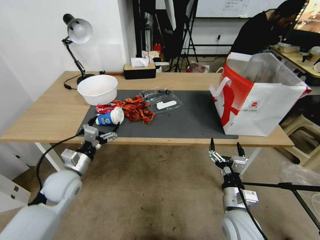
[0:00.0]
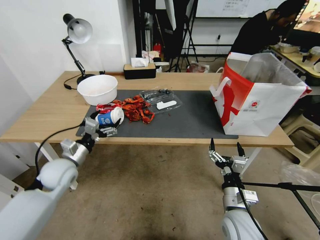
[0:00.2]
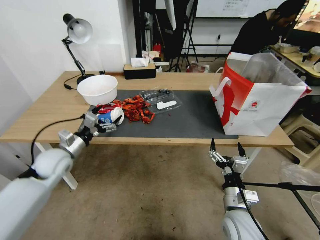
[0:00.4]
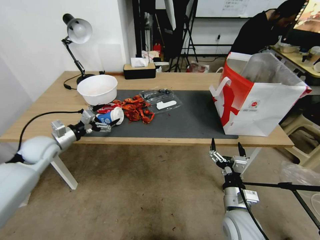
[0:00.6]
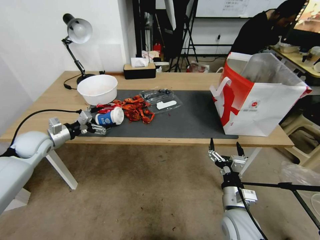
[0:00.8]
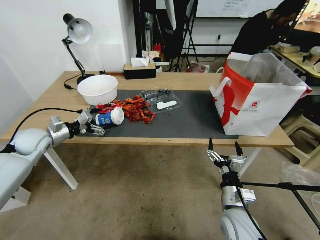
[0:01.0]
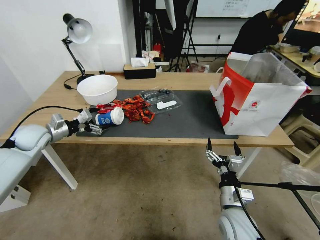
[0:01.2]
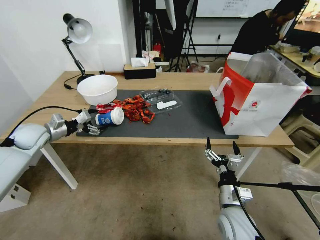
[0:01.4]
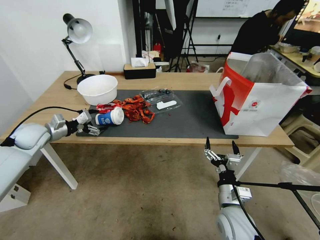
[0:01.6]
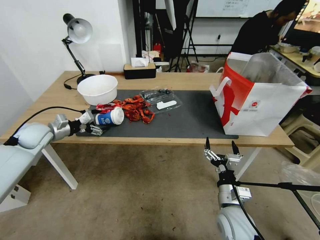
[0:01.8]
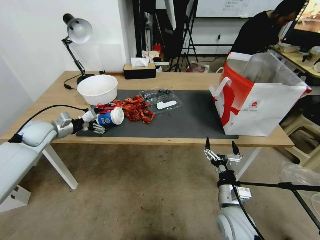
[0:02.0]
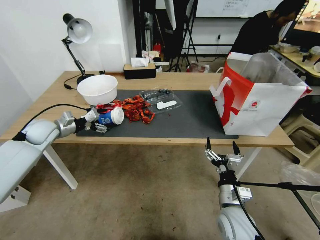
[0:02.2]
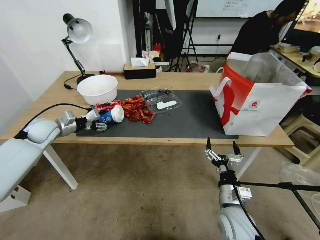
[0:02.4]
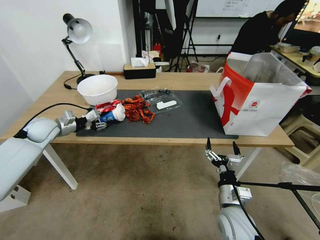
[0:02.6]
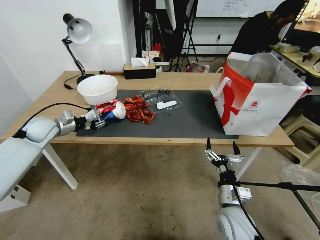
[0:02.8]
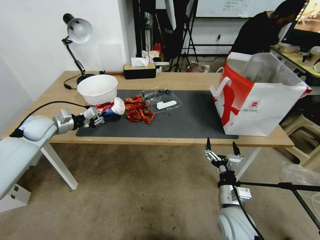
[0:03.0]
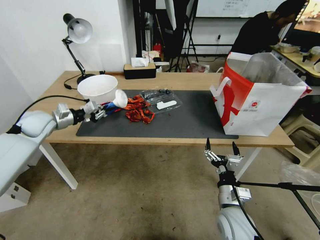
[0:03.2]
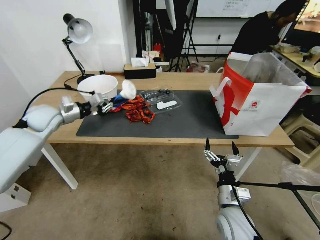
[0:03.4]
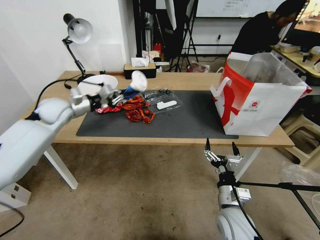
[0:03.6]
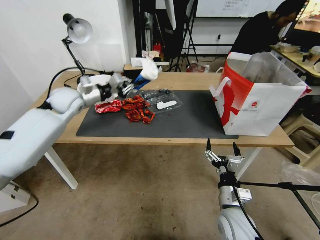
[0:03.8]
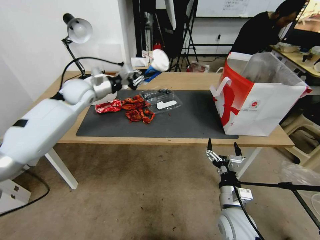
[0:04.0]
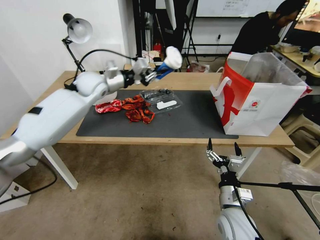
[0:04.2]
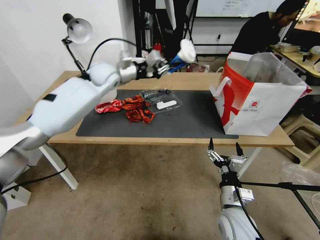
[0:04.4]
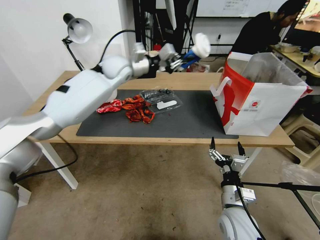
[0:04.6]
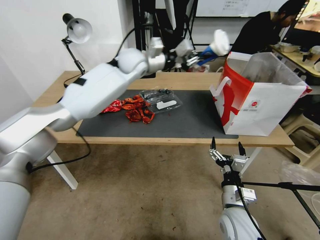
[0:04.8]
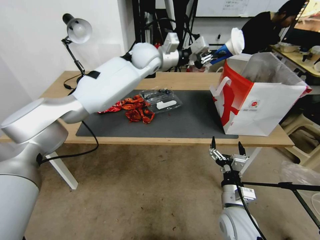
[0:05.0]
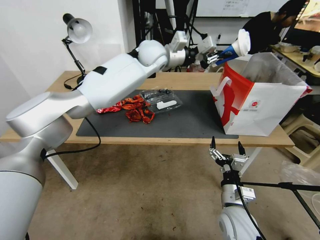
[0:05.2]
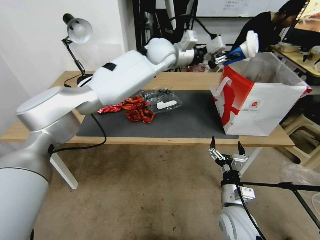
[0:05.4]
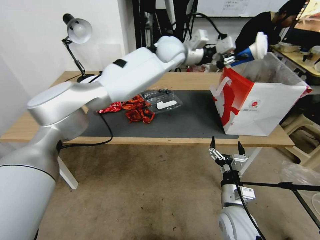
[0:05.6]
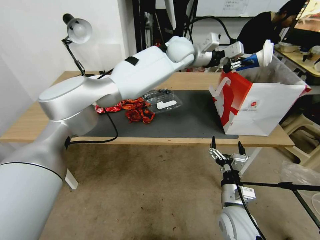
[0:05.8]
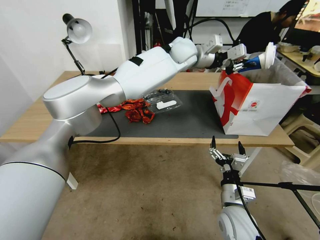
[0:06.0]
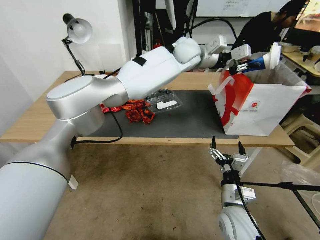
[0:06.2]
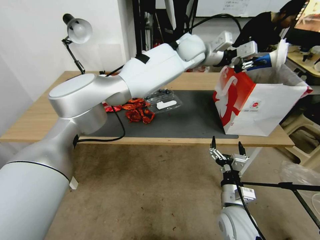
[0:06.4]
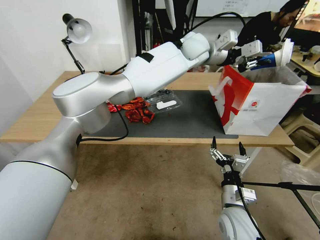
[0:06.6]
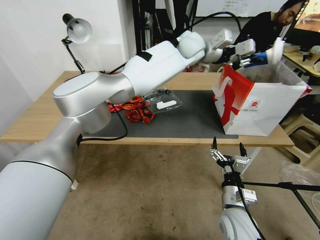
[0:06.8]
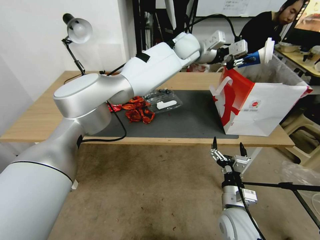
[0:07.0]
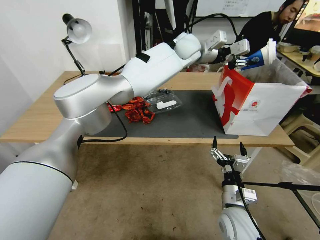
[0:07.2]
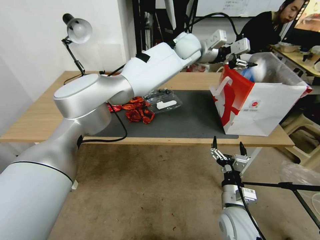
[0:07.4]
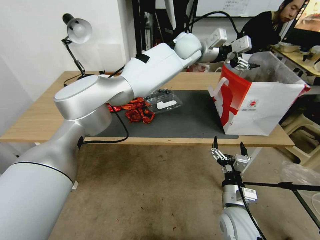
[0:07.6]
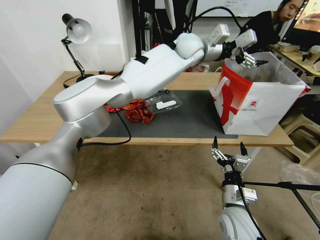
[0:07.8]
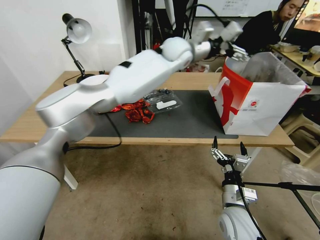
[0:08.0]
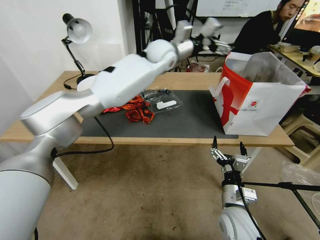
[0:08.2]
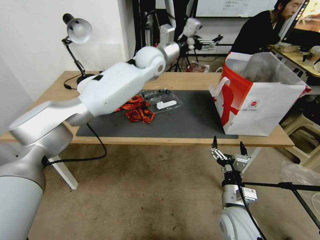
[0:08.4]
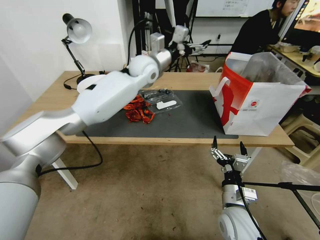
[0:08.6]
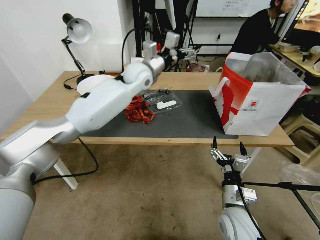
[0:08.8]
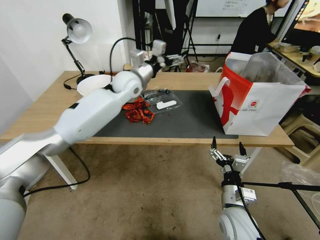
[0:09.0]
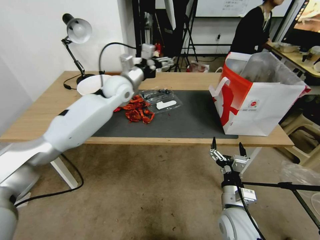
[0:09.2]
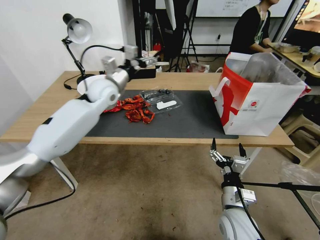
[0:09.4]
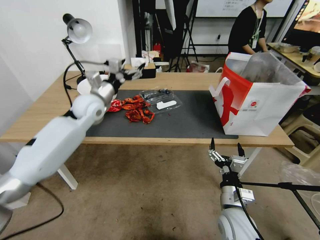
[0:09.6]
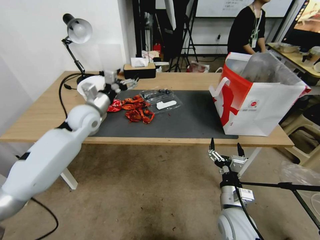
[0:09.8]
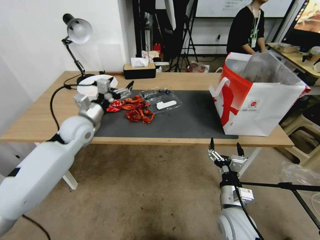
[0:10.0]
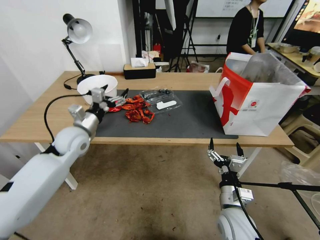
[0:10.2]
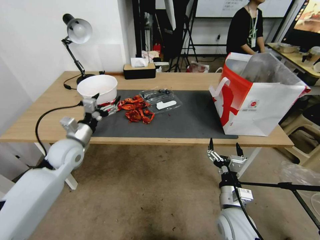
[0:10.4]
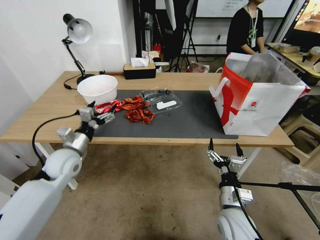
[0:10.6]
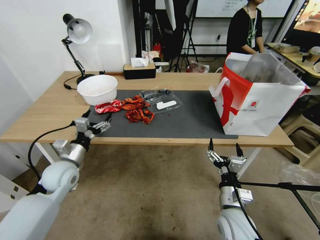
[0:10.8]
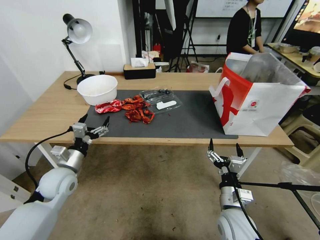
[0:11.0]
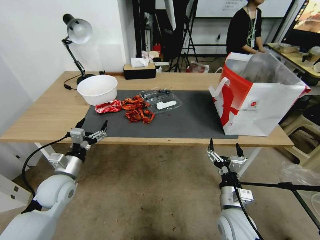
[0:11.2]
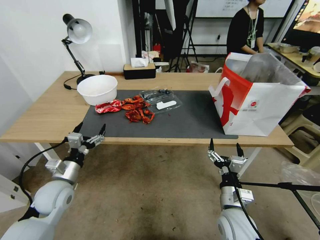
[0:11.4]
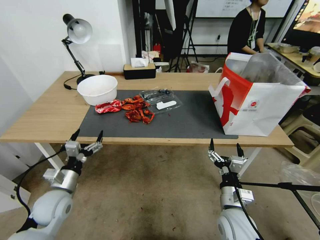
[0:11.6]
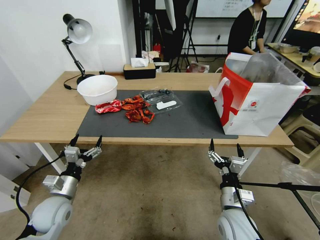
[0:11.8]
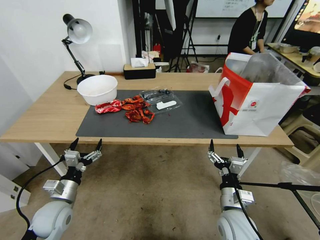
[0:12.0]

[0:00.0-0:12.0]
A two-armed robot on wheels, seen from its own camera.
0:00.0 to 0:01.6: The left gripper heads to the left, forward and upward, covering approximately 20 cm.
0:01.6 to 0:03.0: The left gripper closes.
0:03.0 to 0:04.4: The left gripper moves to the right, upward and forward, some 30 cm.
0:04.4 to 0:06.0: The left gripper heads to the right, covering some 25 cm.
0:06.0 to 0:07.6: The left gripper opens its fingers.
0:07.6 to 0:09.0: The left gripper moves to the left and downward, approximately 20 cm.
0:09.0 to 0:10.4: The left gripper travels to the left, backward and downward by roughly 30 cm.
0:10.4 to 0:12.0: The left gripper shifts roughly 20 cm backward and downward.

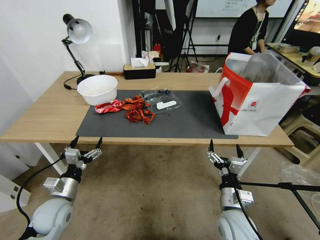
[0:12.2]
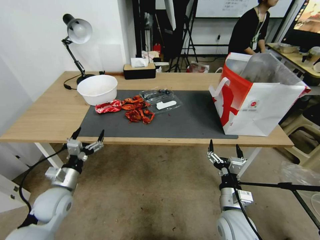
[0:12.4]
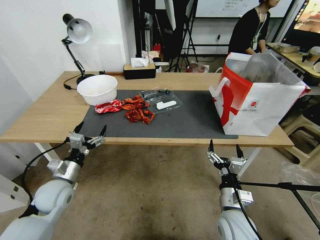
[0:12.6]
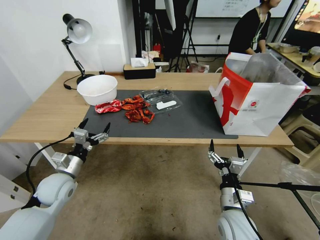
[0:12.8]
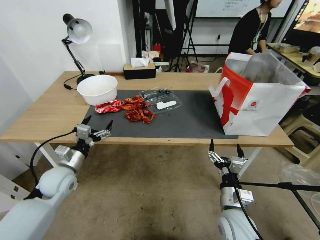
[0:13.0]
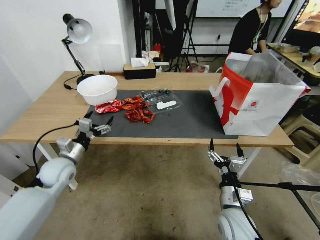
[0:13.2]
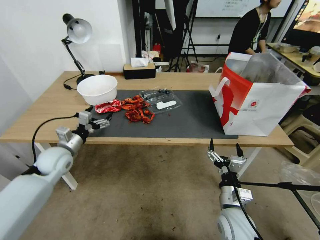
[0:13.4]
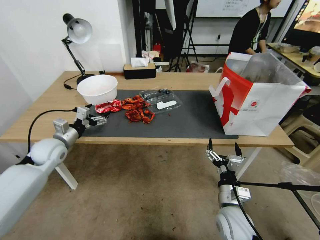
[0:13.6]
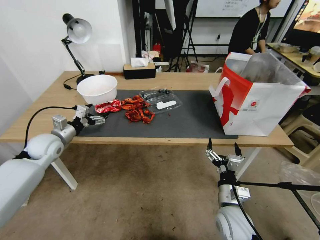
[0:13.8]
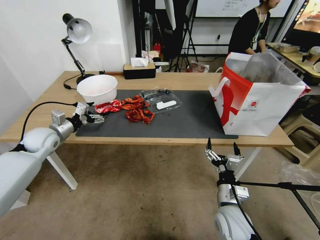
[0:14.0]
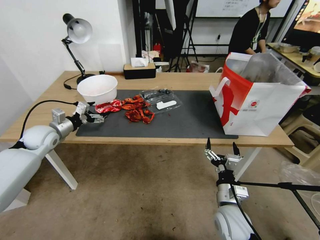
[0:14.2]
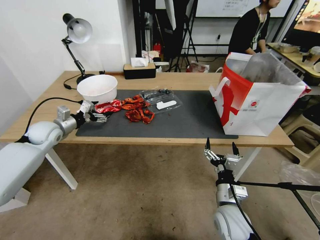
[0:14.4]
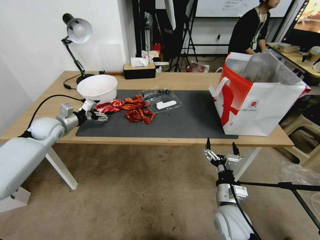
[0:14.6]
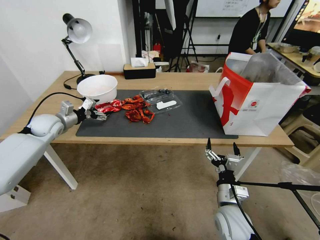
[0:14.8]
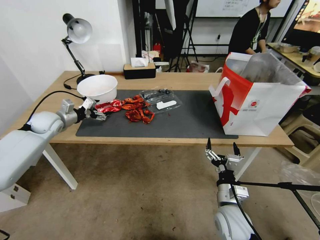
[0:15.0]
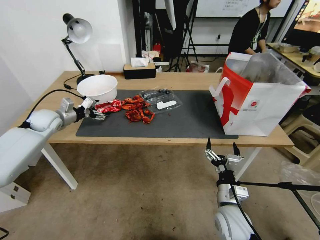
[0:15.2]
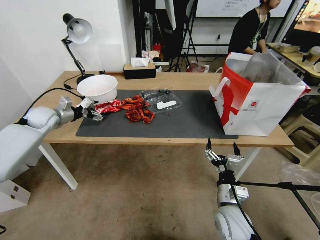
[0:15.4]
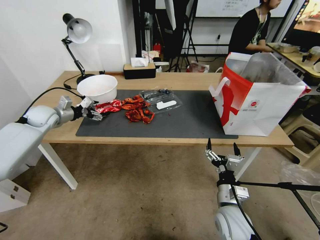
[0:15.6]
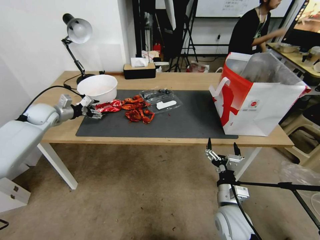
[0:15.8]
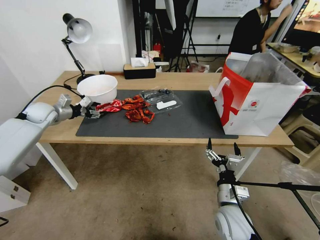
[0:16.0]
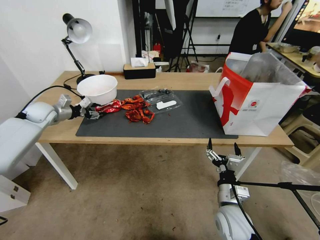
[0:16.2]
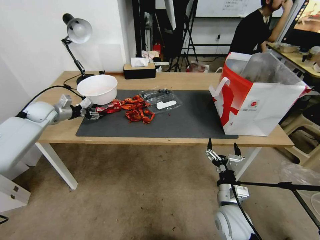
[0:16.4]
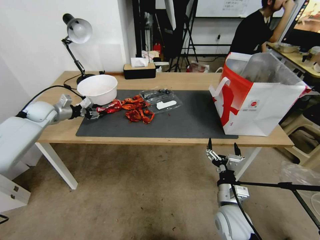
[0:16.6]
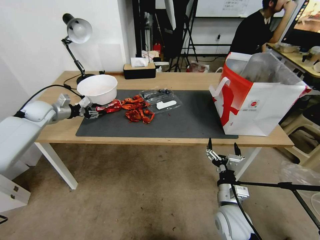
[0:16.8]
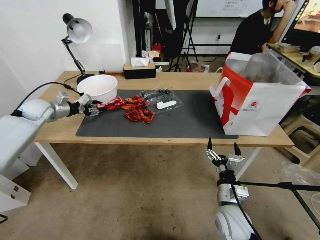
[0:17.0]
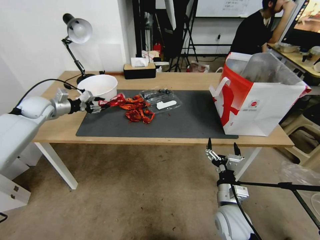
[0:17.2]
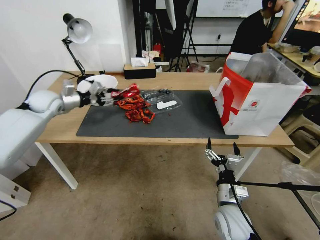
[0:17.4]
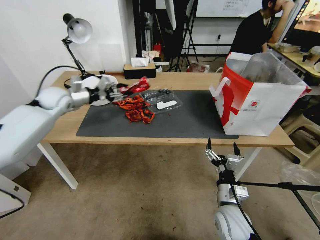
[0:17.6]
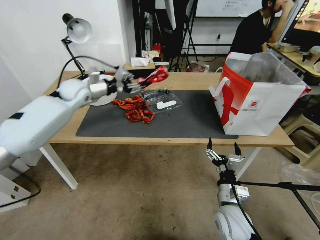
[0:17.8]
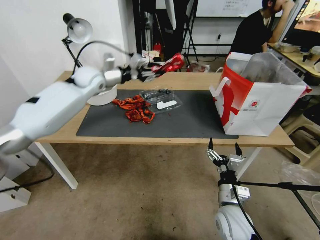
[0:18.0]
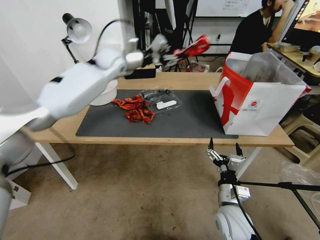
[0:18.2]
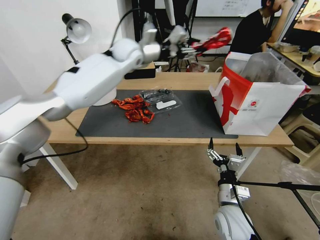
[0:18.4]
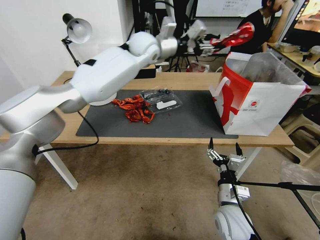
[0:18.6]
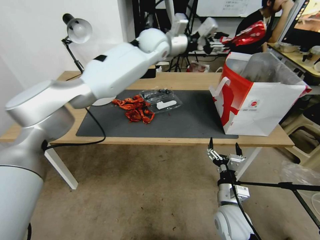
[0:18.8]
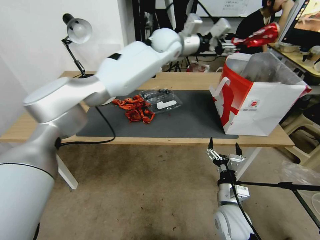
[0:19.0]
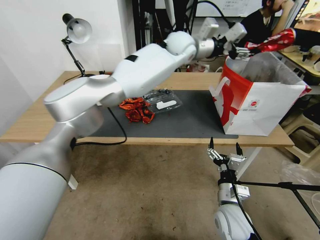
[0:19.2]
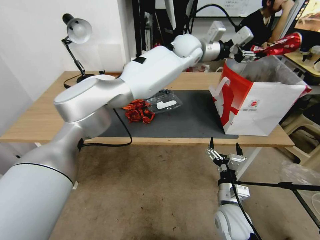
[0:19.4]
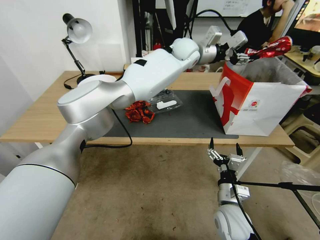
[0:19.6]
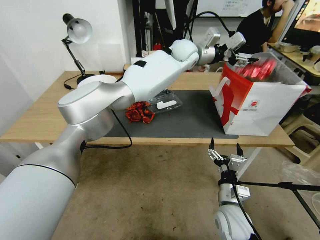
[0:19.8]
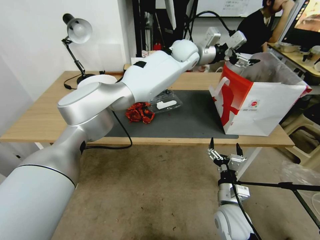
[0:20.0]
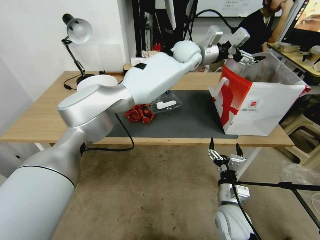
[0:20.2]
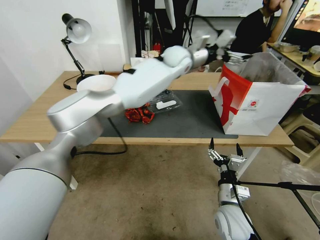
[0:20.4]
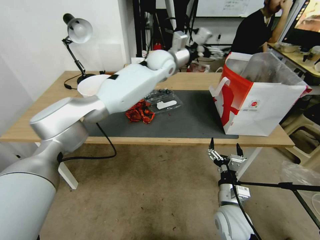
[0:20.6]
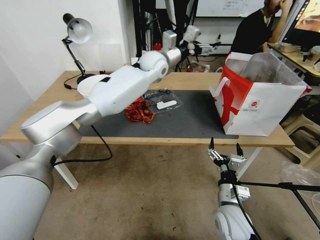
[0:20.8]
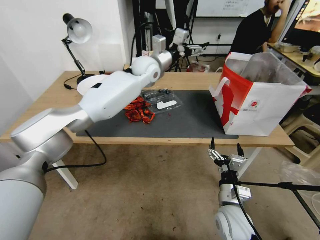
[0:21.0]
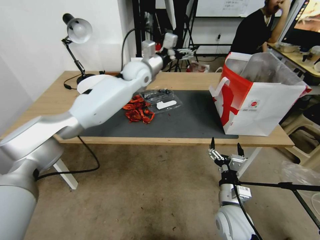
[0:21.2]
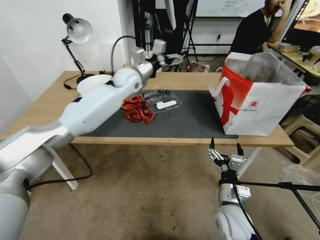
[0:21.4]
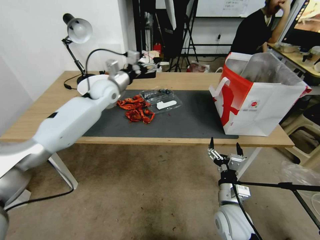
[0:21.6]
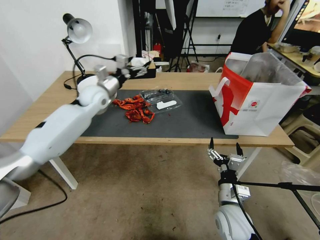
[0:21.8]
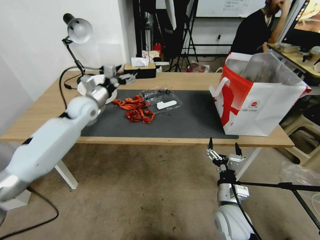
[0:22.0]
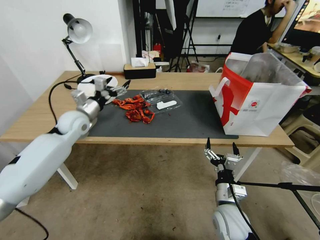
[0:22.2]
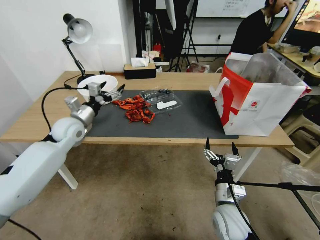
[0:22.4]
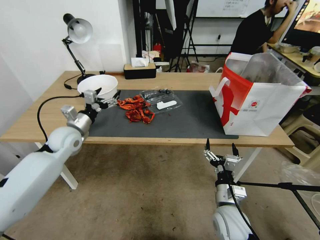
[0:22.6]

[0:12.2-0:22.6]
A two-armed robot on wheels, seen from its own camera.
0:12.2 to 0:13.6: The left gripper moves forward and upward, about 20 cm.
0:13.6 to 0:15.2: The left gripper heads forward and to the left, covering about 10 cm.
0:15.2 to 0:16.6: The left gripper closes up.
0:16.6 to 0:18.2: The left gripper moves to the right and upward, approximately 35 cm.
0:18.2 to 0:19.6: The left gripper goes about 25 cm to the right.
0:19.6 to 0:21.2: The left gripper goes approximately 20 cm to the left and downward, and opens.
0:21.2 to 0:22.6: The left gripper is displaced to the left, backward and downward by some 35 cm.
